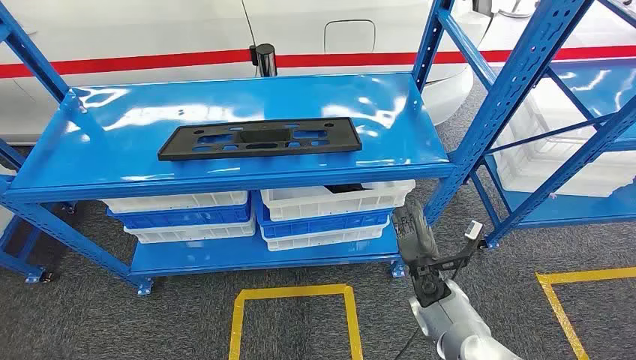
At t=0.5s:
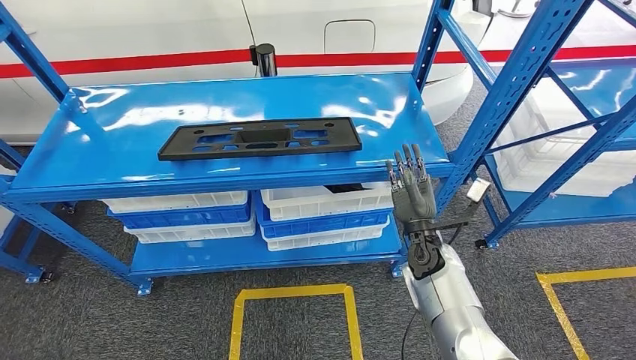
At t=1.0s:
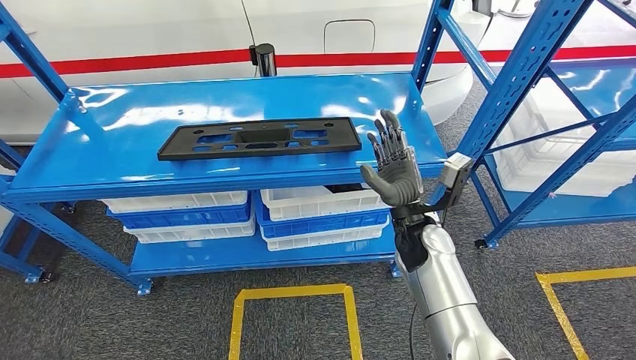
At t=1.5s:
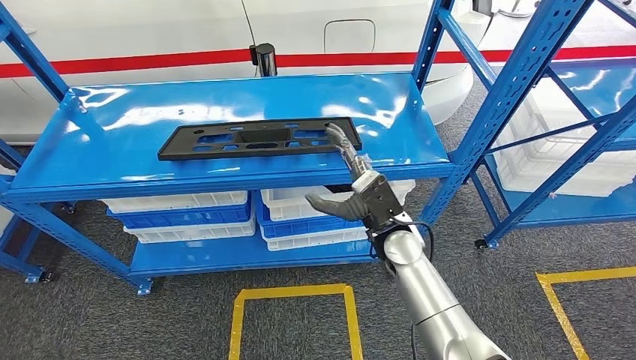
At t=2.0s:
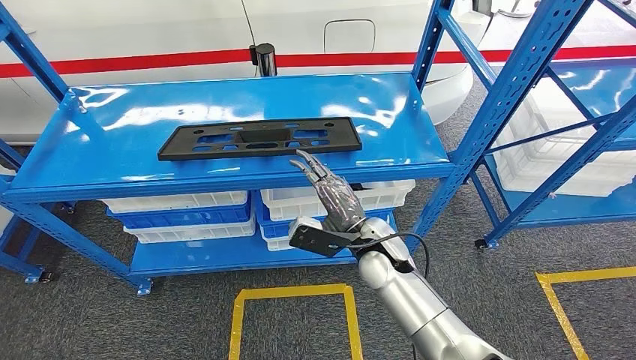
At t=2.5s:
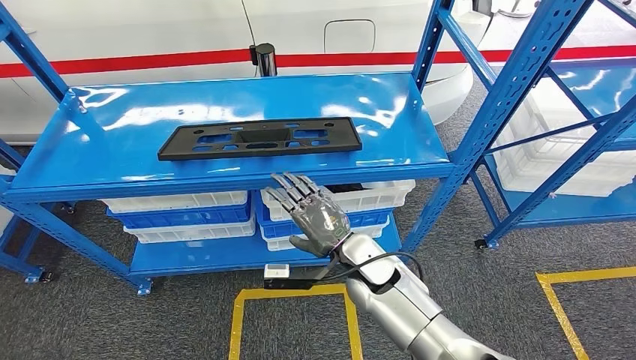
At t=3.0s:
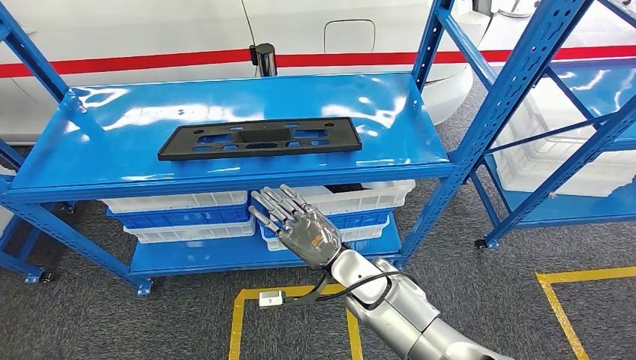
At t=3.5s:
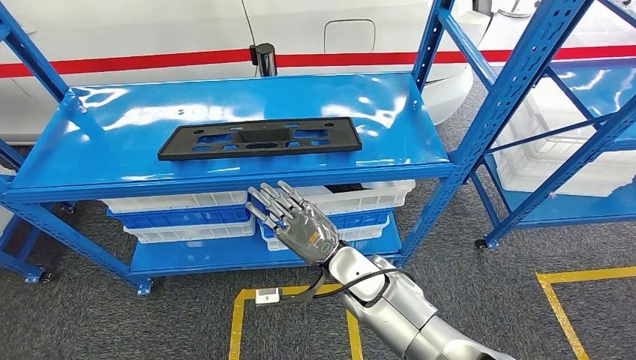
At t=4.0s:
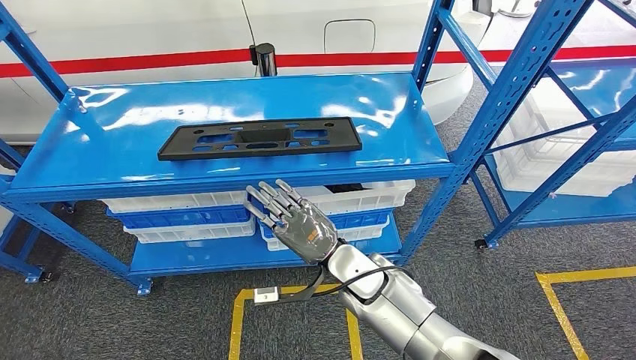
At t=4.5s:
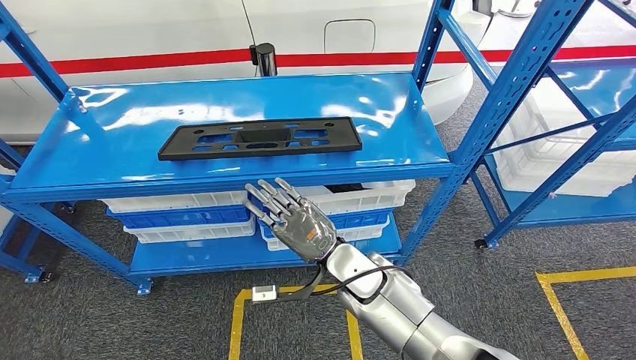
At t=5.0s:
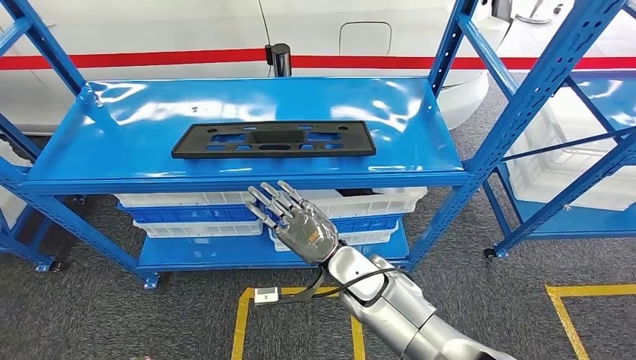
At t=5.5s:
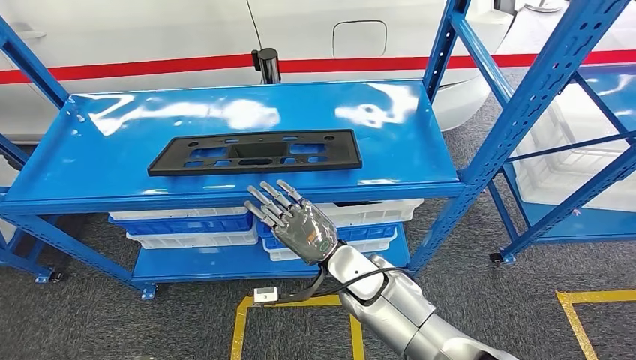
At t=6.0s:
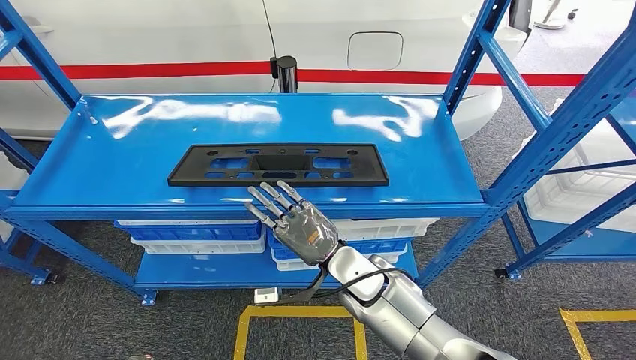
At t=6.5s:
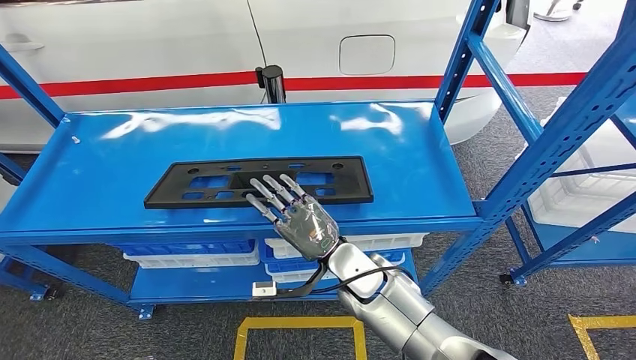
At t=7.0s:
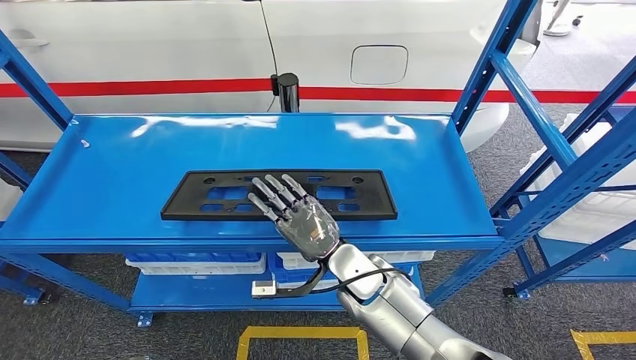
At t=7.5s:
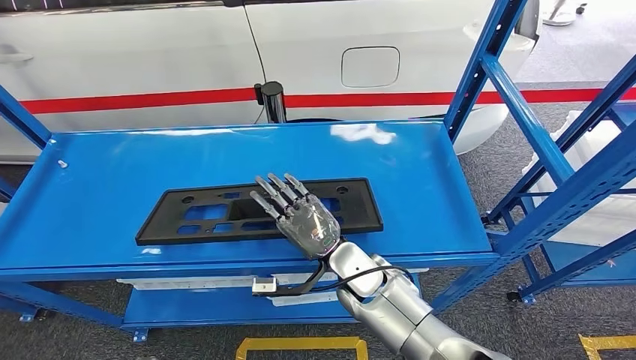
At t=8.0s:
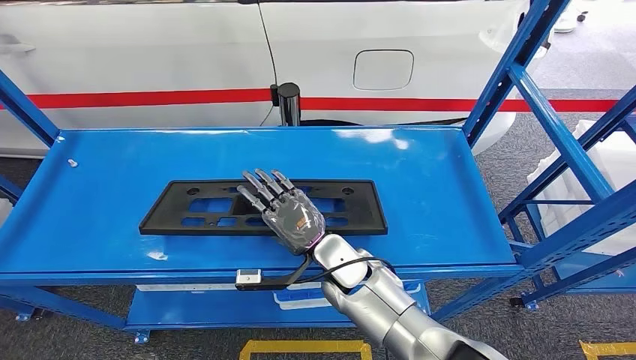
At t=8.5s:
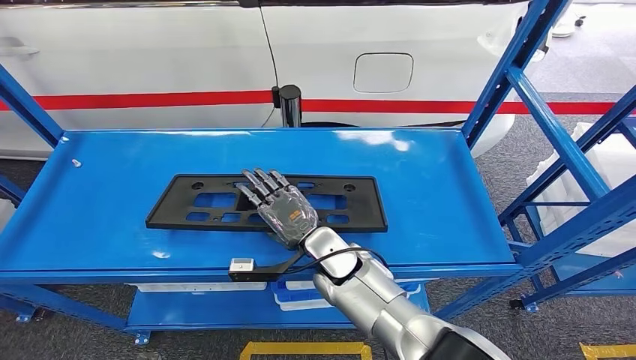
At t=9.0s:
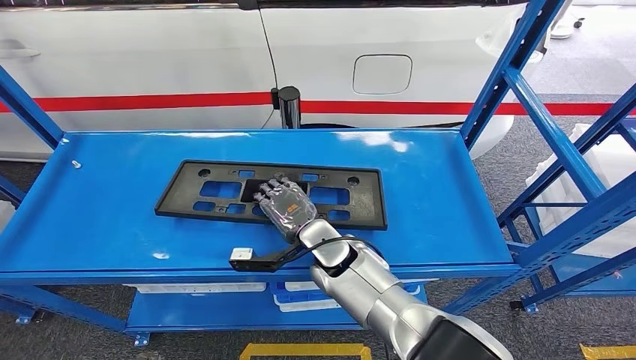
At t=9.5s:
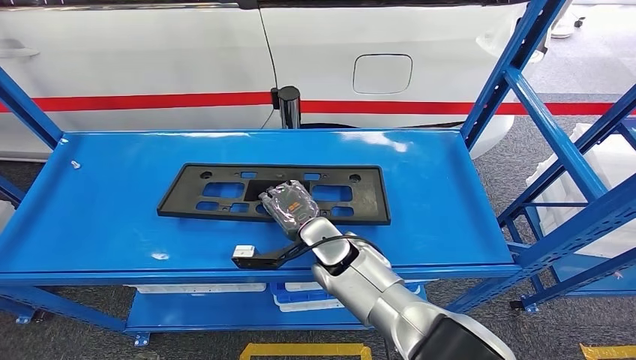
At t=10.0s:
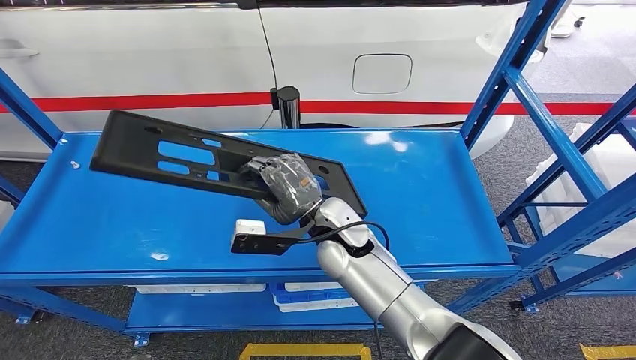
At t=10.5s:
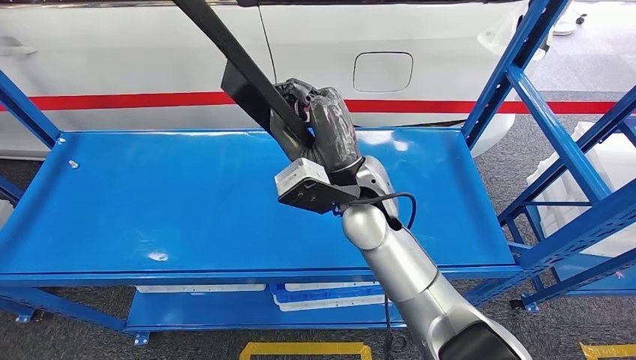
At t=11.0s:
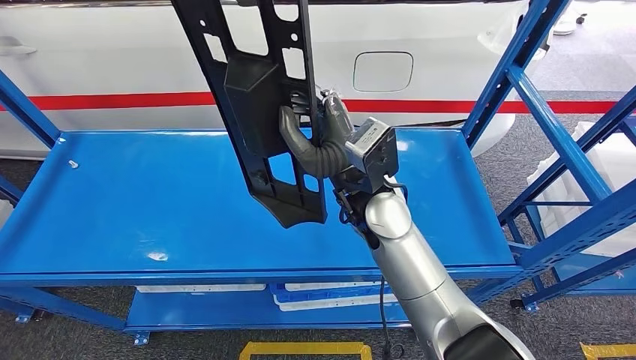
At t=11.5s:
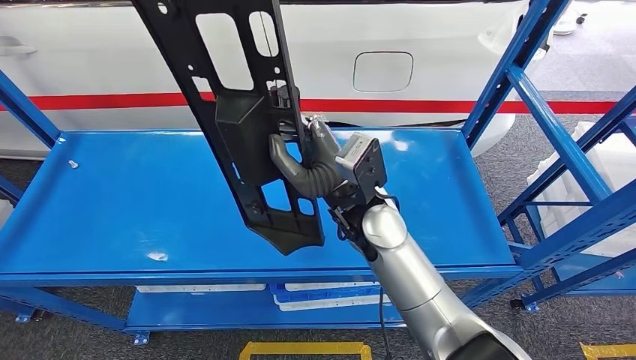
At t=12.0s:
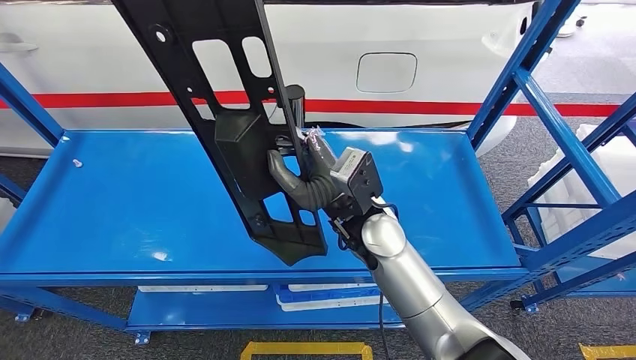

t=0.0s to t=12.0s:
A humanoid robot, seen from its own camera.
t=2.0s to t=4.0s: The right hand changes place by about 5 cm.

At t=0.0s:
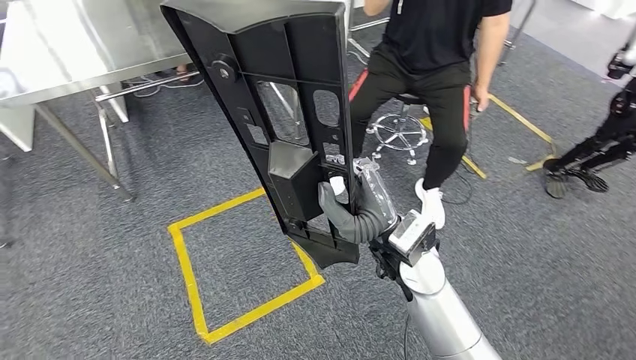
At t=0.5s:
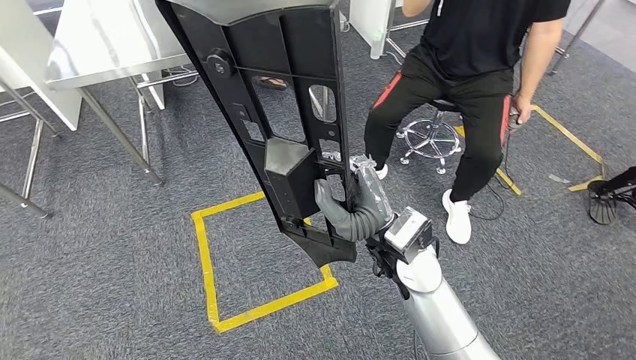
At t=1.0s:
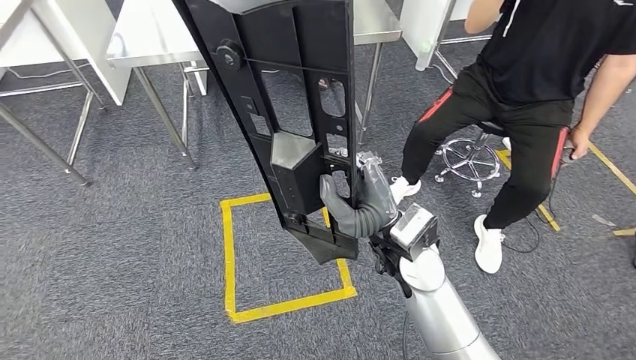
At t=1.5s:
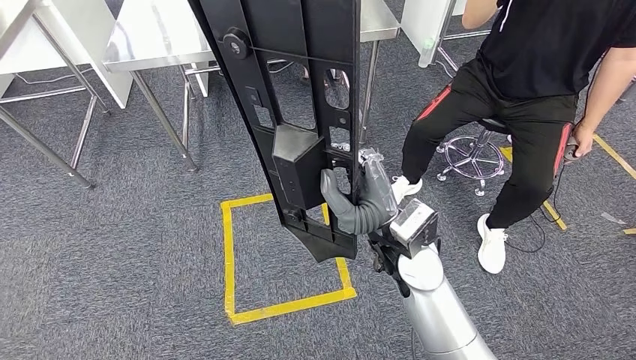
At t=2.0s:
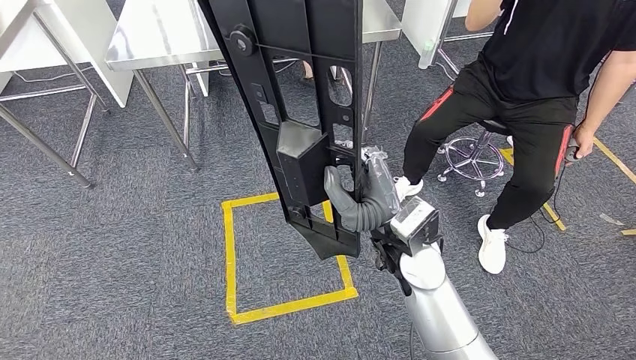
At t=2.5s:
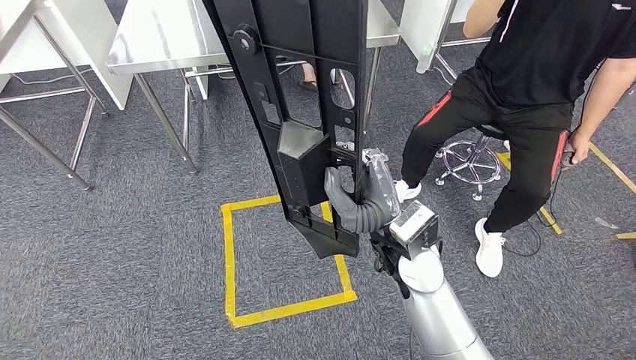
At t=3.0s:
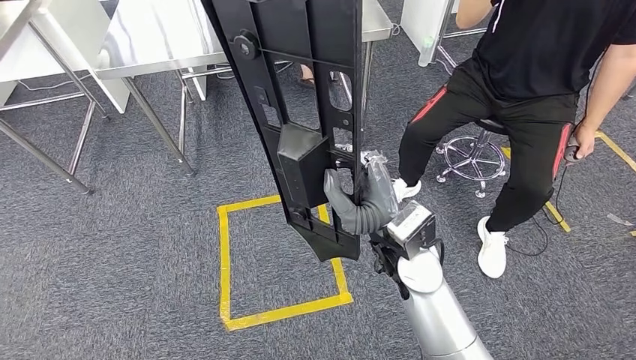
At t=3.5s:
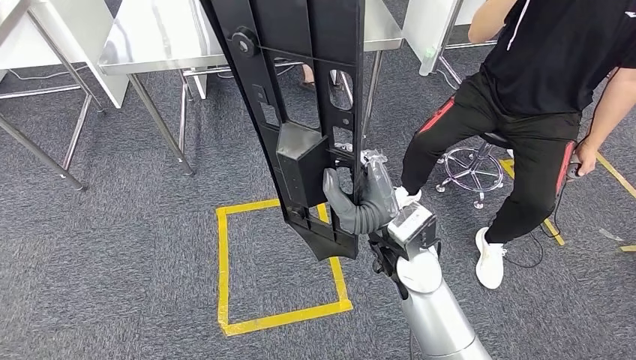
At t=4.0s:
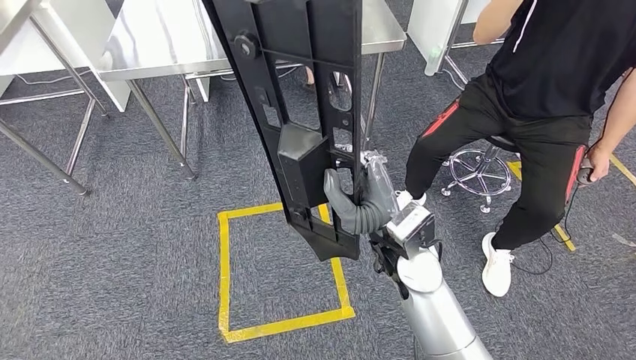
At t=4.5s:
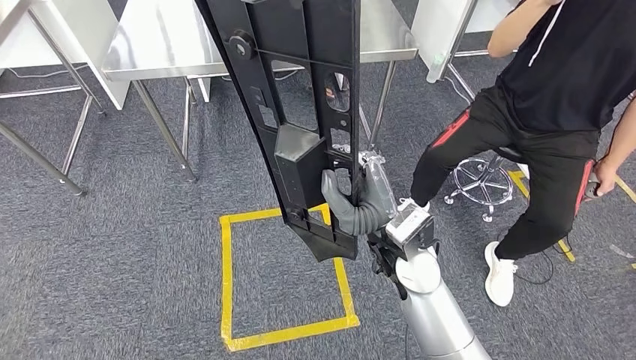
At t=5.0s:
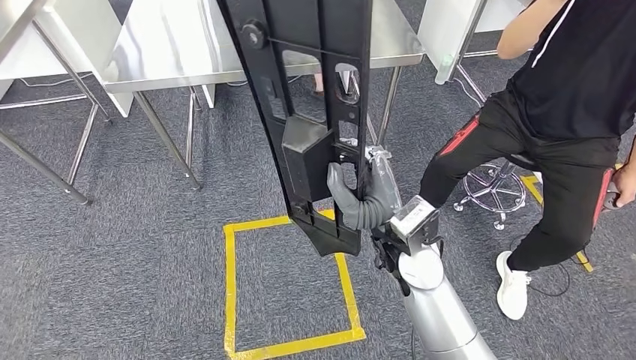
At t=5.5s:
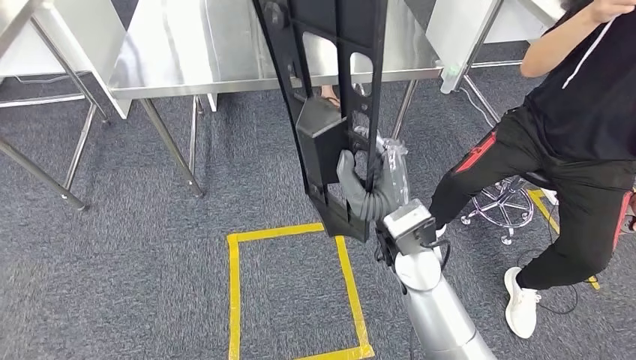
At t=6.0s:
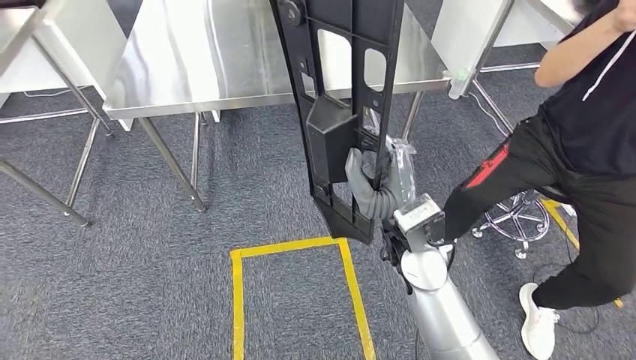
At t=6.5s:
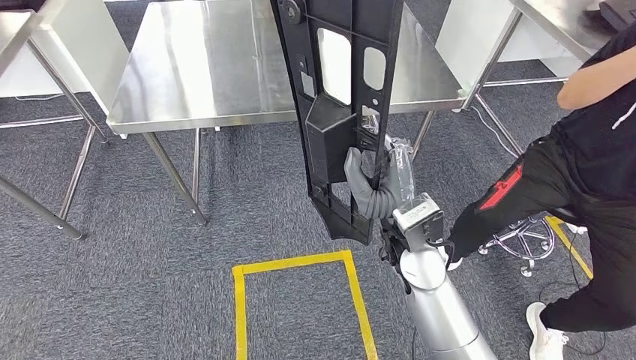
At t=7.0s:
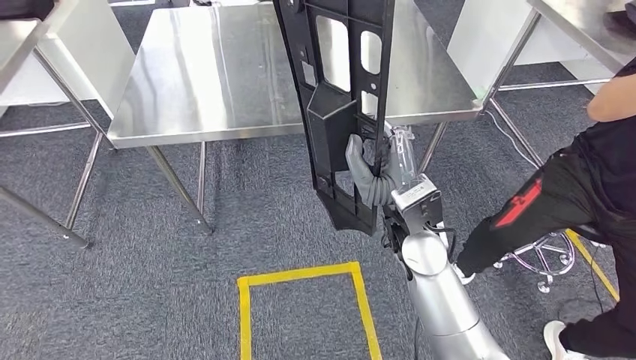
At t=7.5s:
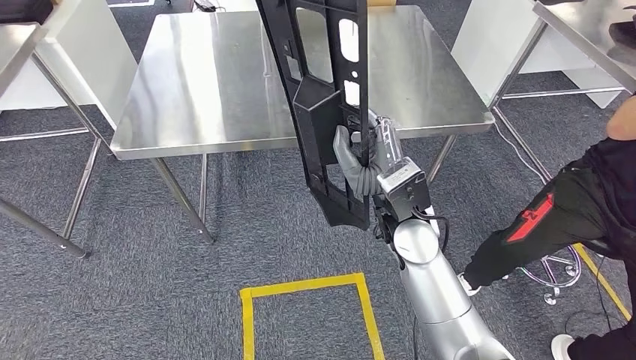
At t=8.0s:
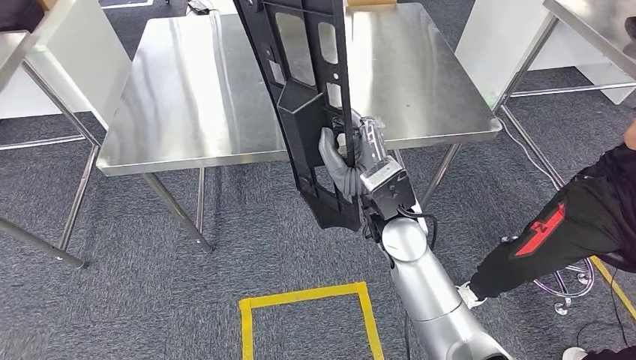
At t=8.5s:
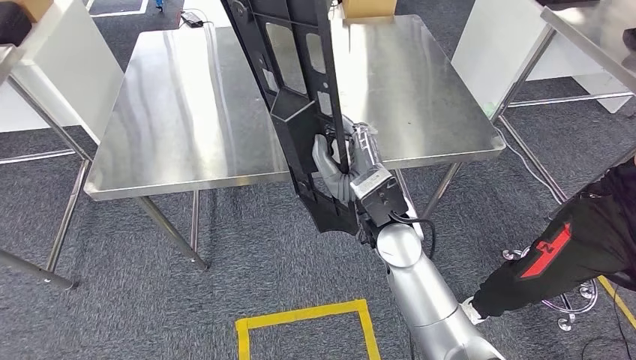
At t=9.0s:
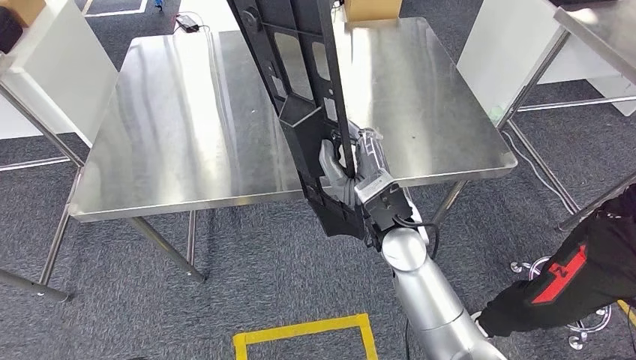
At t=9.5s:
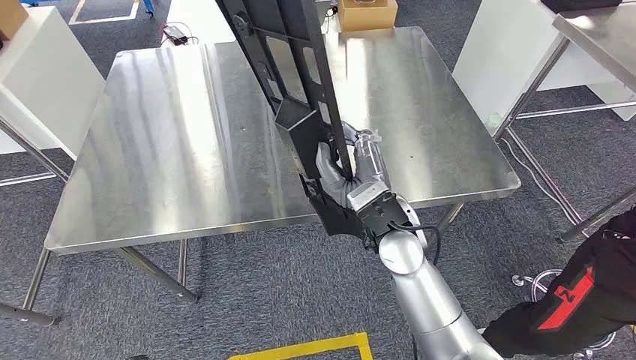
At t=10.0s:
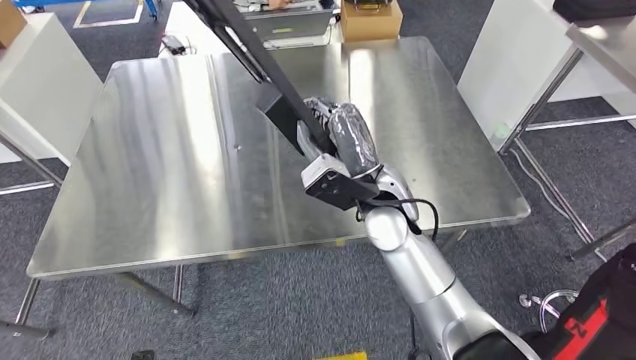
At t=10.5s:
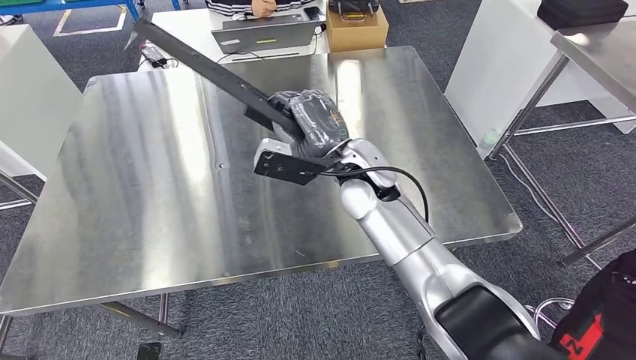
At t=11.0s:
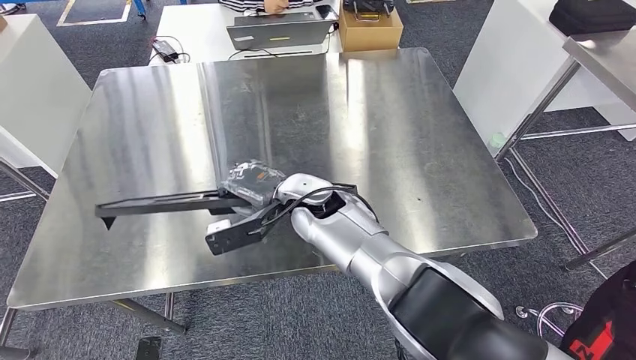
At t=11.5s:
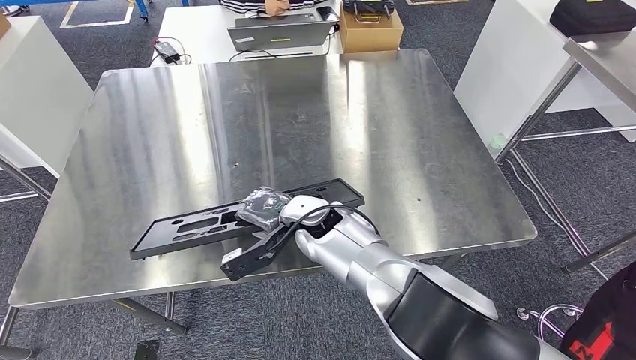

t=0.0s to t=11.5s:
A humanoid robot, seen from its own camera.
Step, t=0.0s to t=9.0s: Move the large material to the workbench.
